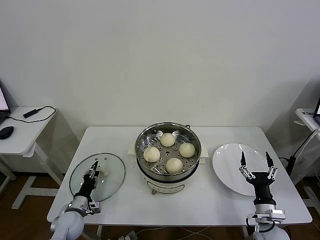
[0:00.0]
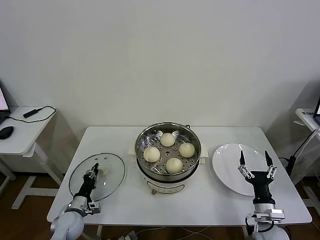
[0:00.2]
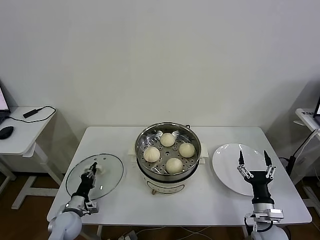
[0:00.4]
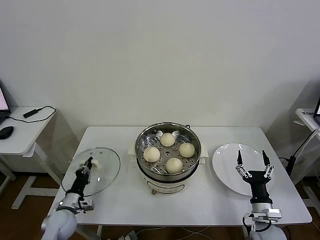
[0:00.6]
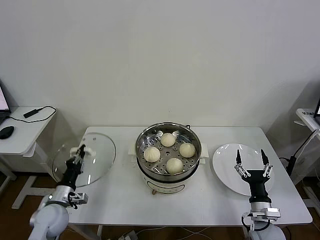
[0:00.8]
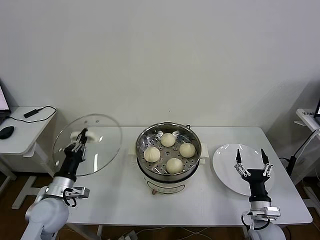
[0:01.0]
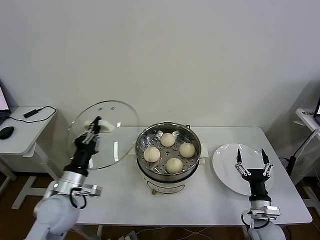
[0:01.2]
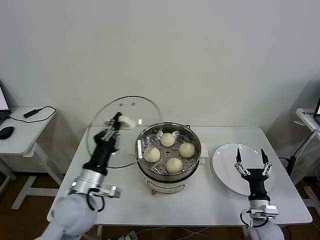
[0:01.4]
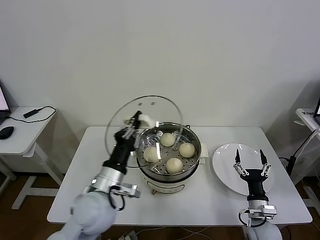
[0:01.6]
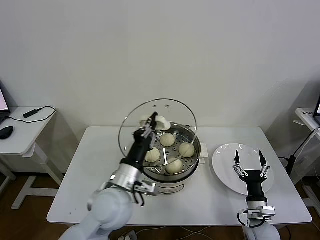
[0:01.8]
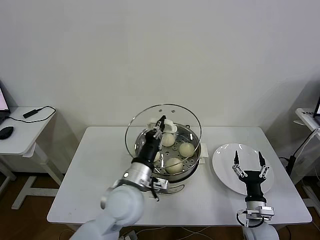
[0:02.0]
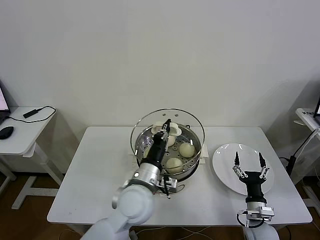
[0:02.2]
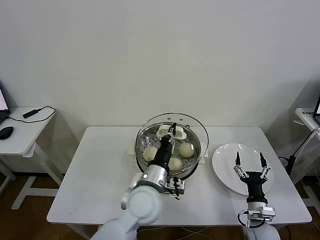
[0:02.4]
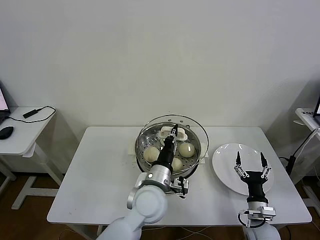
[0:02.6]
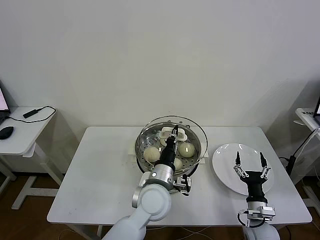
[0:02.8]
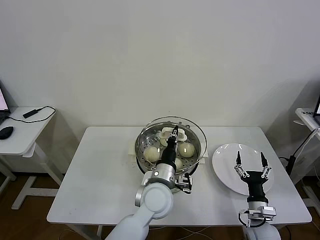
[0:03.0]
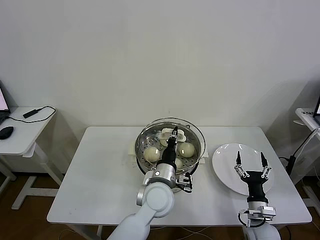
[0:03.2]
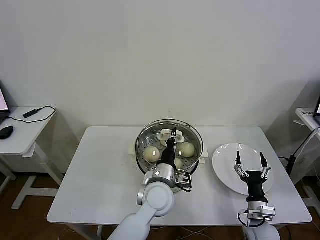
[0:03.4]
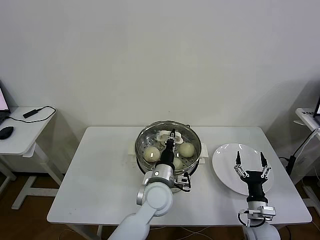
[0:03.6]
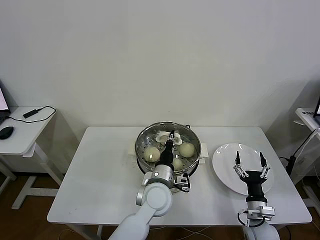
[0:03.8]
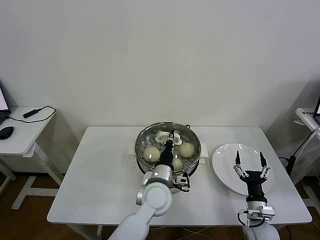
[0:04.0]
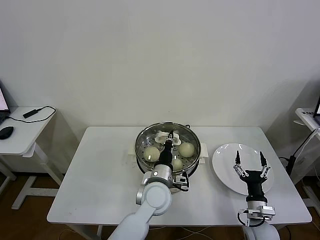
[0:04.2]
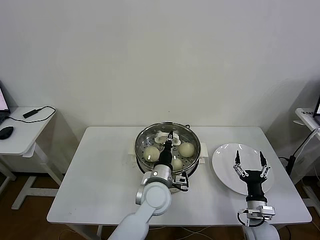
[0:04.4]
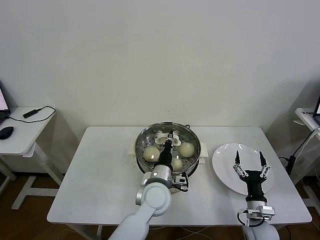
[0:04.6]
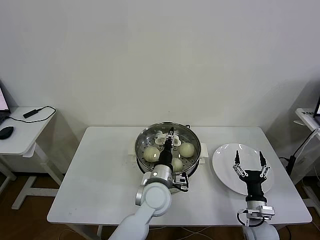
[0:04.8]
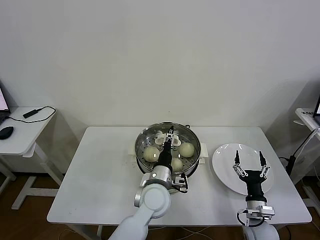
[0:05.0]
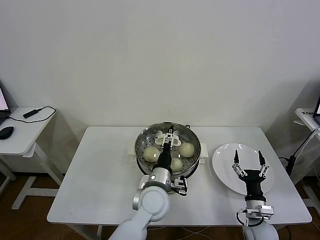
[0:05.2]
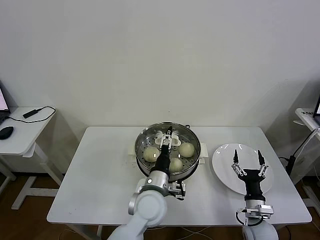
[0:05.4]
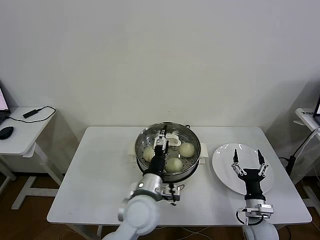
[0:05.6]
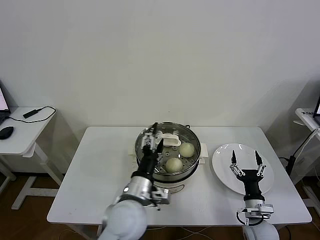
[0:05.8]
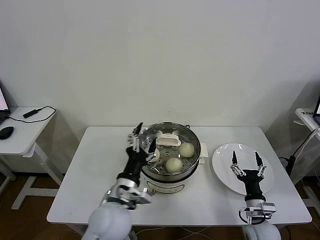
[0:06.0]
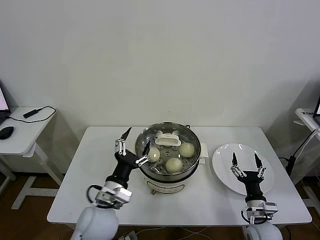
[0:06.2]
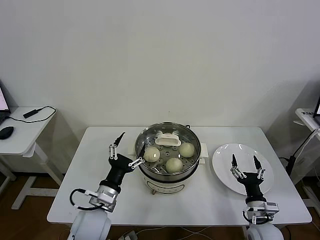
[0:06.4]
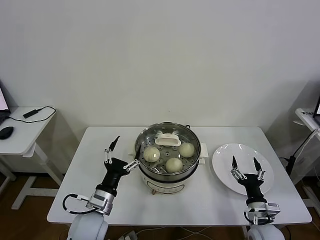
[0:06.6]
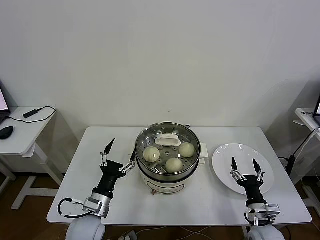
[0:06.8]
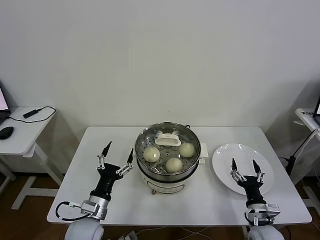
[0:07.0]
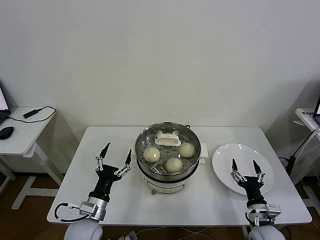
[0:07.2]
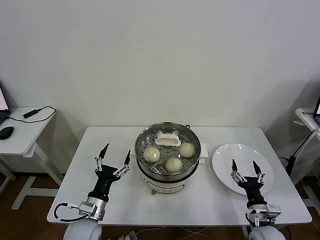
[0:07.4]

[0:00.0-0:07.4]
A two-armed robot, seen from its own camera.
Task of the whole recording: take steamed baozi put them in steamer then cover it.
Step, 0:00.6 to 0:05.0: Place the pot lid on the steamer with left gripper.
0:00.0 to 0:01.4: The left gripper moves upward and to the right, about 25 cm, and closes up.
0:01.4 to 0:03.0: The left gripper heads to the right, covering some 20 cm.
0:03.0 to 0:04.4: The grippers move only a little.
0:04.4 to 0:06.0: The left gripper goes approximately 15 cm to the left, backward and upward, and opens its fingers.
0:06.0 to 0:07.4: The left gripper travels to the left and downward by roughly 15 cm.
